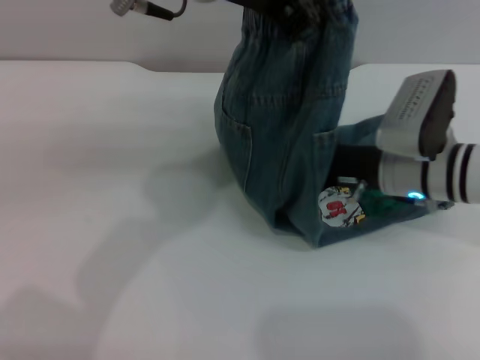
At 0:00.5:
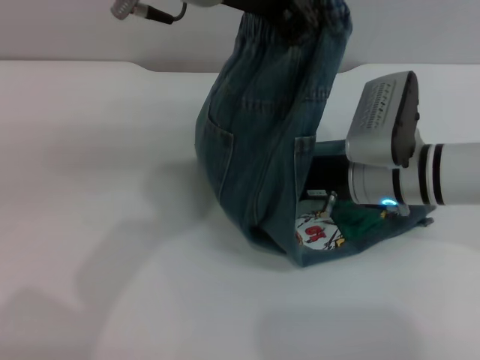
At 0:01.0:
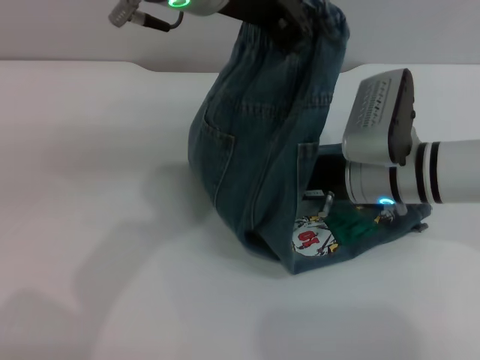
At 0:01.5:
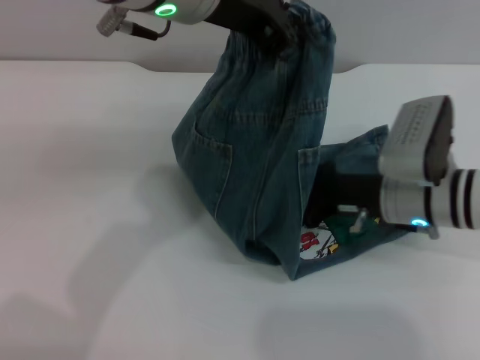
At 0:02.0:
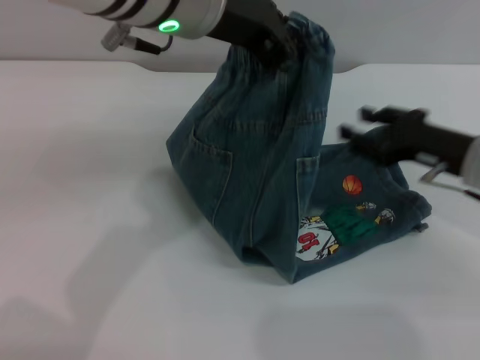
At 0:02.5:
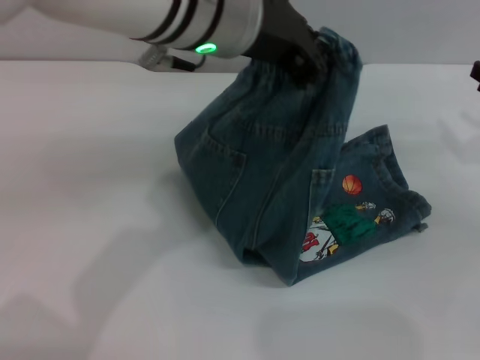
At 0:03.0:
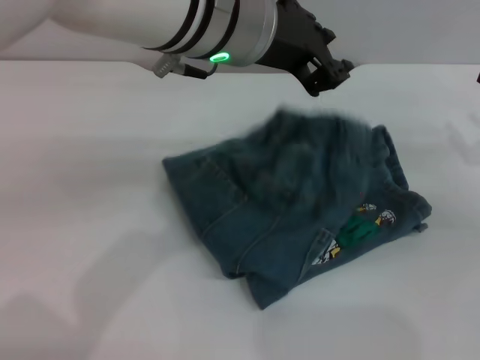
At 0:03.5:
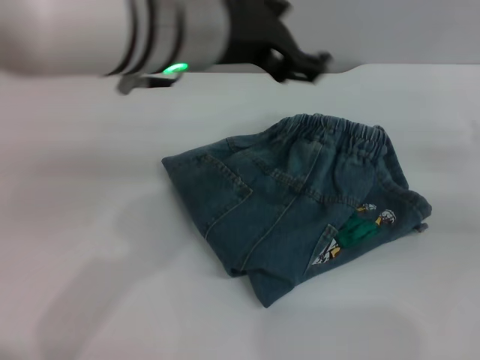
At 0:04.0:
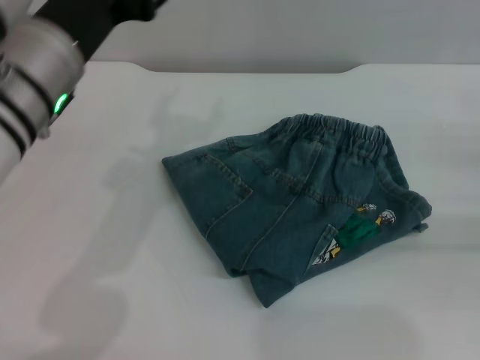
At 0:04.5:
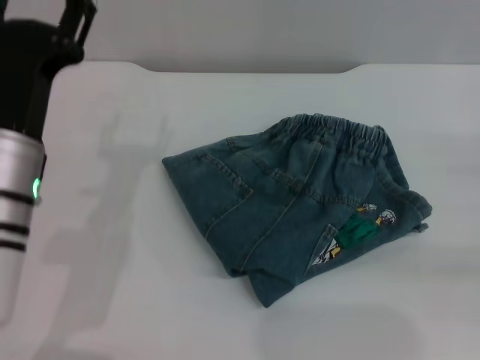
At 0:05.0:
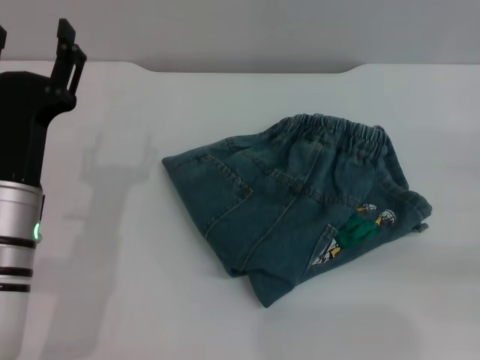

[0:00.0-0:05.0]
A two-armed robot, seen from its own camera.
Step, 0:00.0 to 0:03.5: Fold the pants from left to right with the left gripper.
0:00.0 to 0:02.5: The right gripper goes roughly 15 cm to the right.
0:02.5 to 0:05.0: The left gripper shifts about 25 cm downward, to the left and backward, and opens up, while the right gripper moves to the right and backward, some 10 cm.

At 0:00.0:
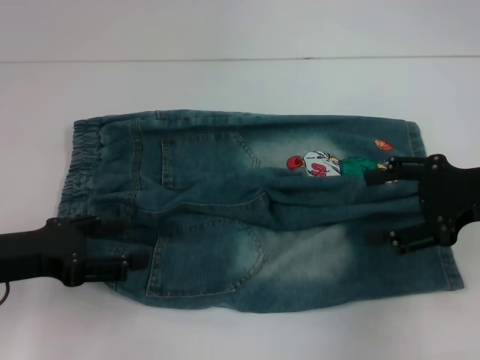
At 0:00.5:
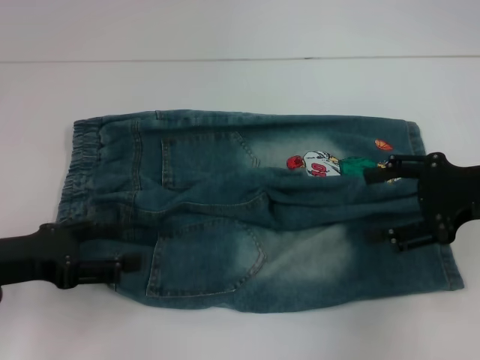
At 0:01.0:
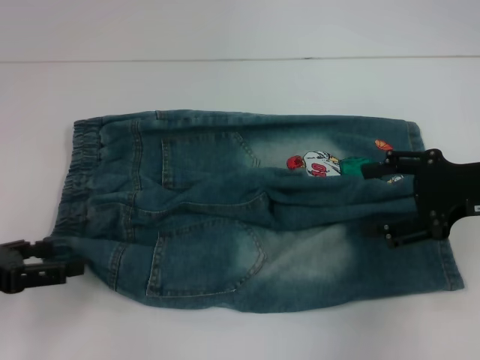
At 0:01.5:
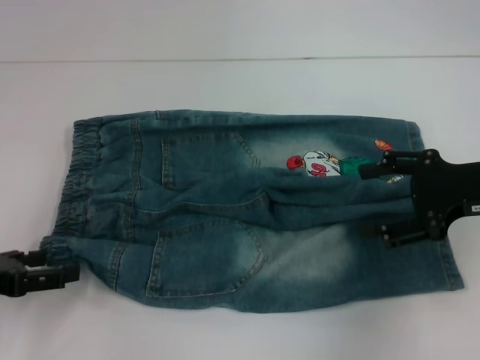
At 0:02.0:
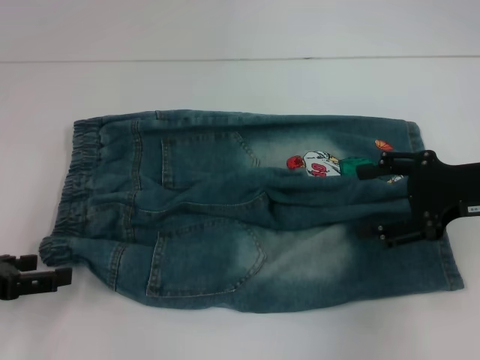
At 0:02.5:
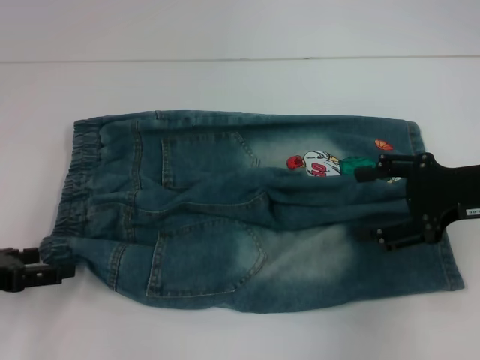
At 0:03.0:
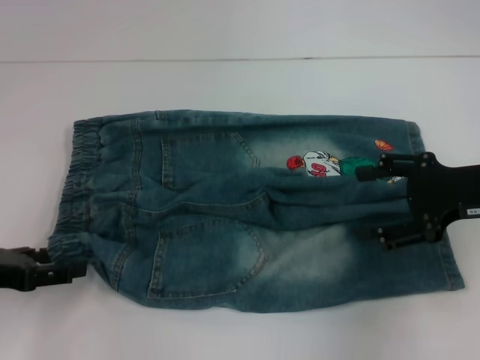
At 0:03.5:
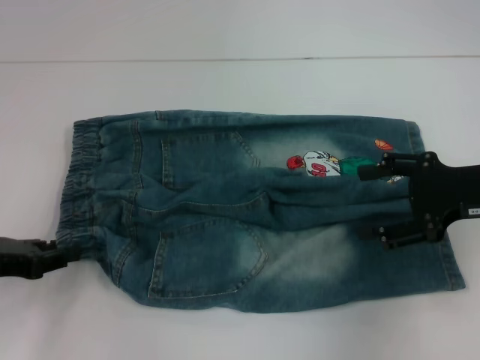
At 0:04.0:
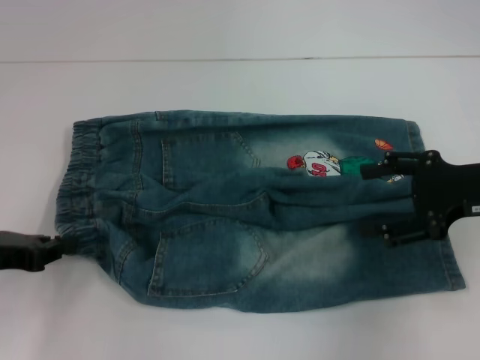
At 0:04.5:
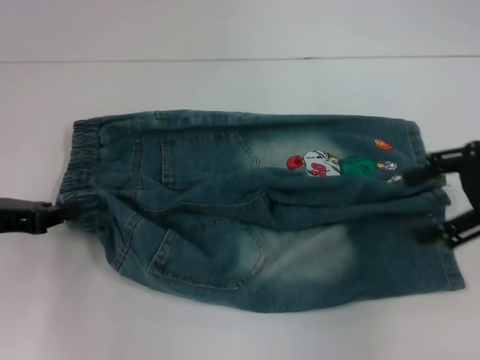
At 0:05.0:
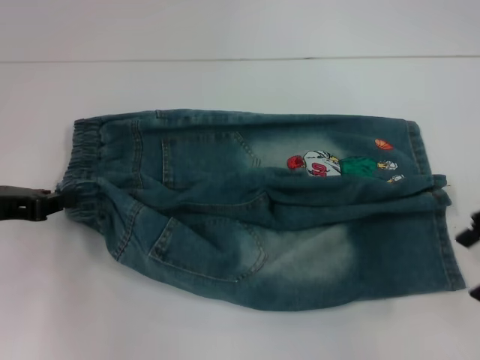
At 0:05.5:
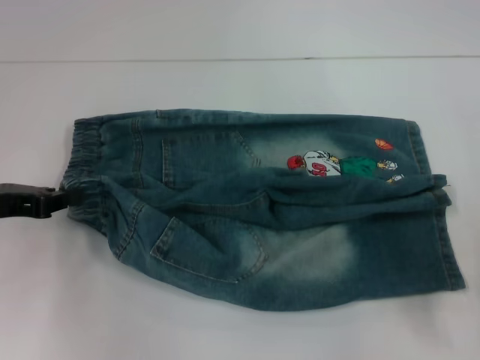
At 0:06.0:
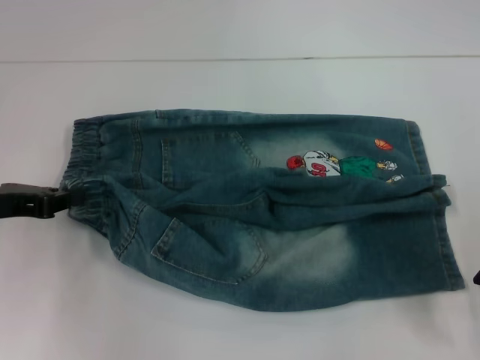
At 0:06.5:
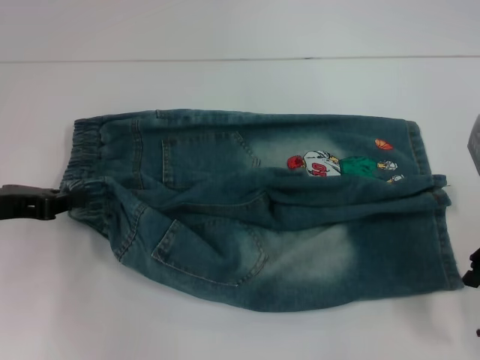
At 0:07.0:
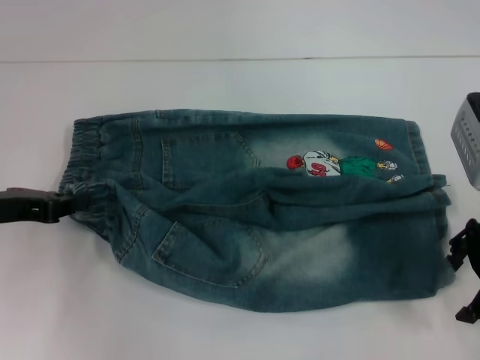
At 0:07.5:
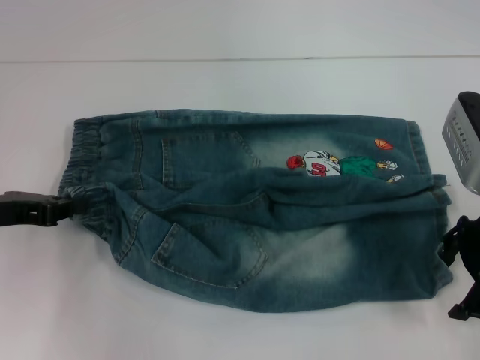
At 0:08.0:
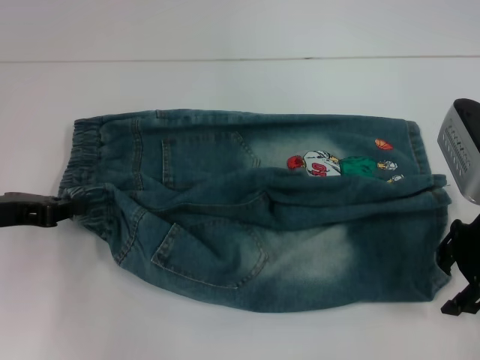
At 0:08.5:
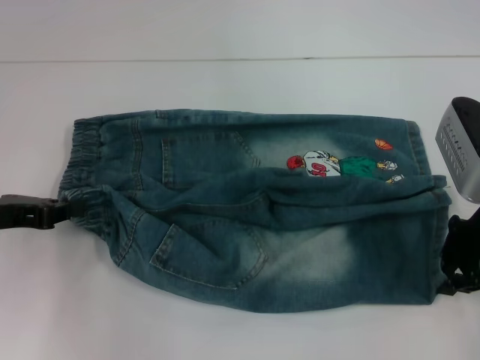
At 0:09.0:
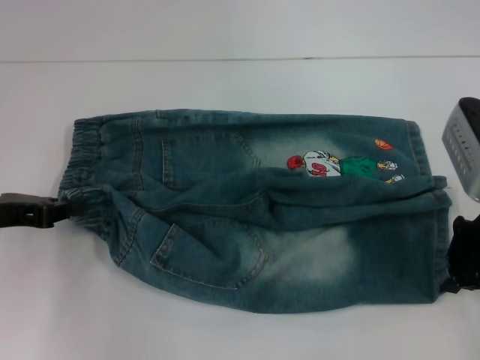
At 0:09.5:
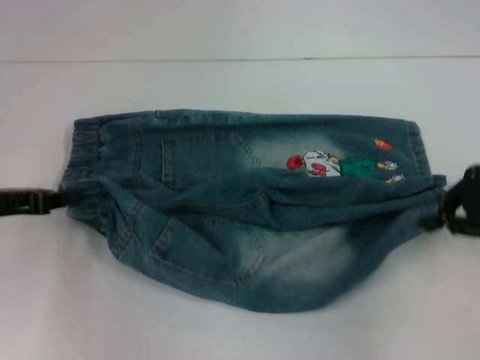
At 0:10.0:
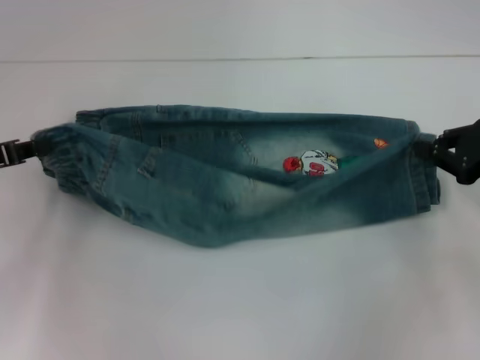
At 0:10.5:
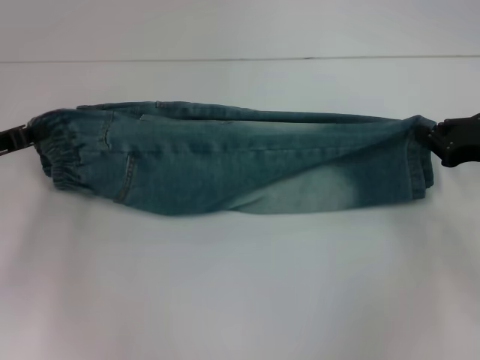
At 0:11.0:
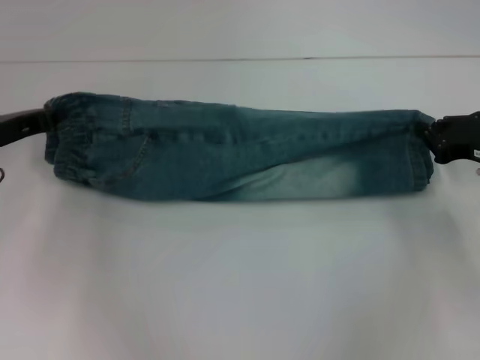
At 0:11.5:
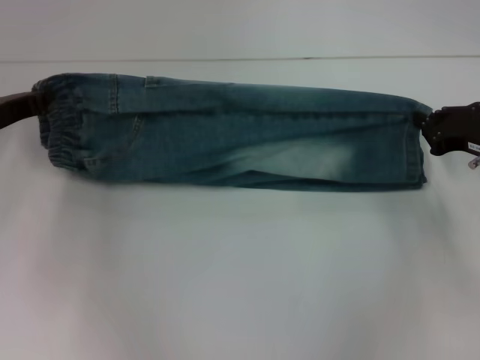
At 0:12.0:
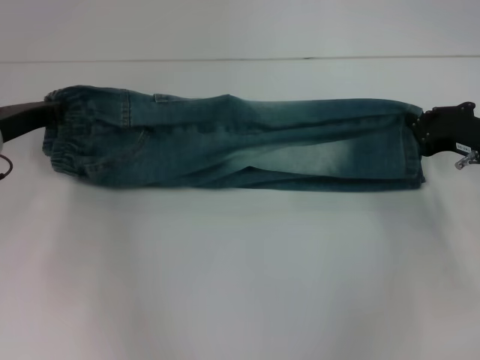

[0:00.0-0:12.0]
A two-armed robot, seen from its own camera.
Step, 0:00.0 to 0:03.0: Hold the lower left waistband with your left hand.
Step, 0:03.5 to 0:09.0: Grab the lower right pant leg with your right hand.
0:00.0 to 0:02.0: The left gripper goes some 5 cm to the left.
0:02.0 to 0:04.0: The left gripper closes up.
0:06.0 to 0:08.0: There are only small adjustments of the grippers.
0:08.0 to 0:10.0: The right gripper heads to the right, covering about 10 cm, and closes its fingers.
0:10.0 to 0:12.0: The right gripper shifts about 5 cm downward; the left gripper shifts some 5 cm forward.

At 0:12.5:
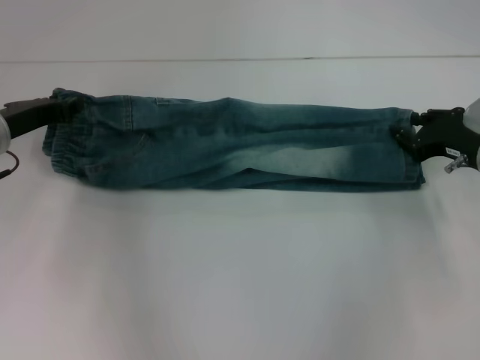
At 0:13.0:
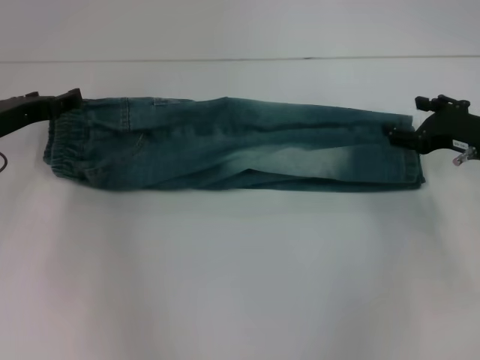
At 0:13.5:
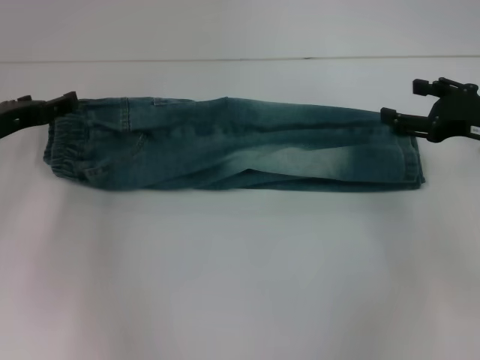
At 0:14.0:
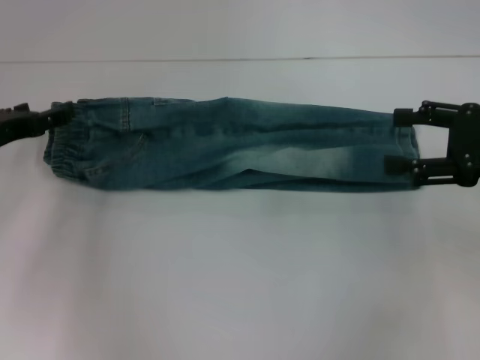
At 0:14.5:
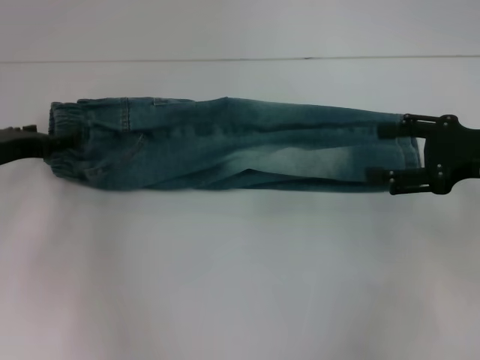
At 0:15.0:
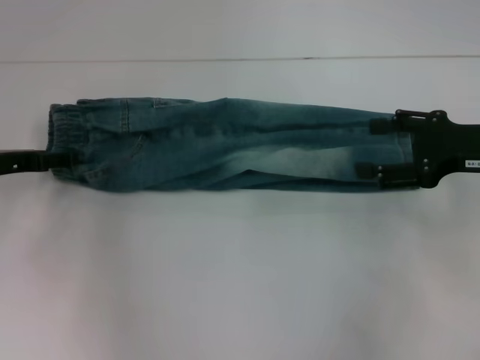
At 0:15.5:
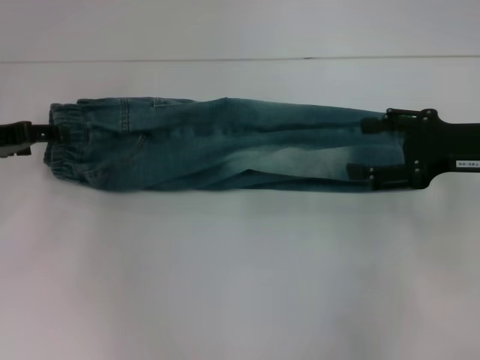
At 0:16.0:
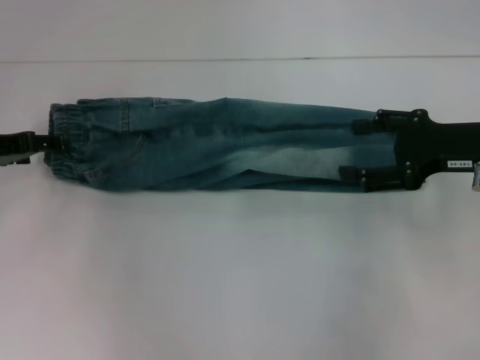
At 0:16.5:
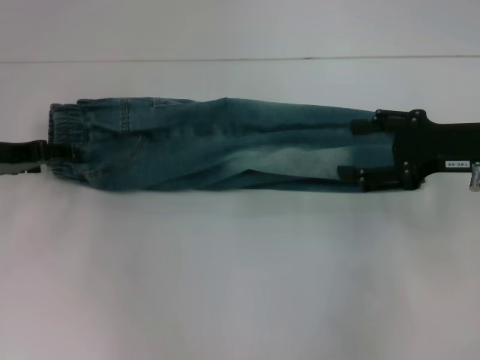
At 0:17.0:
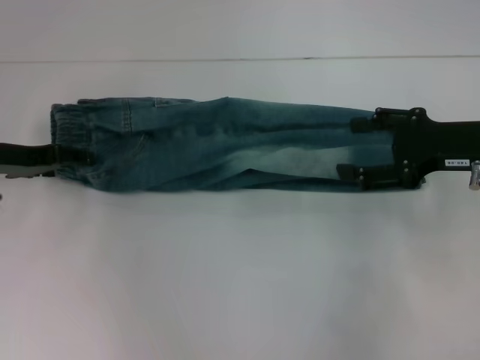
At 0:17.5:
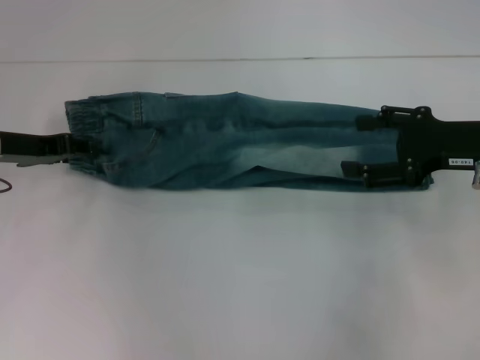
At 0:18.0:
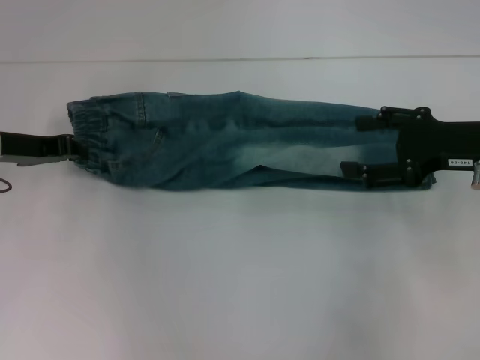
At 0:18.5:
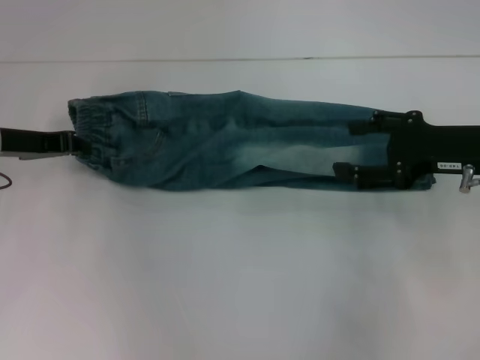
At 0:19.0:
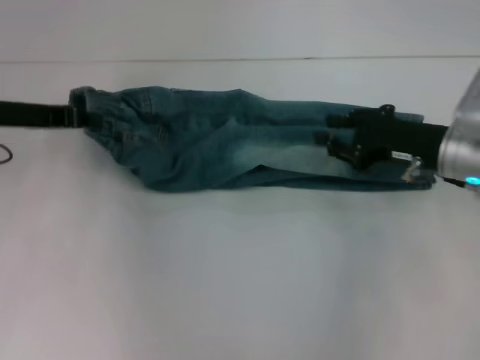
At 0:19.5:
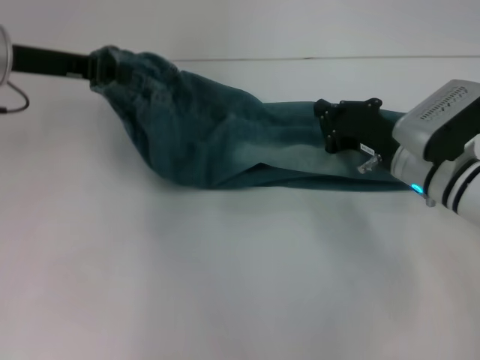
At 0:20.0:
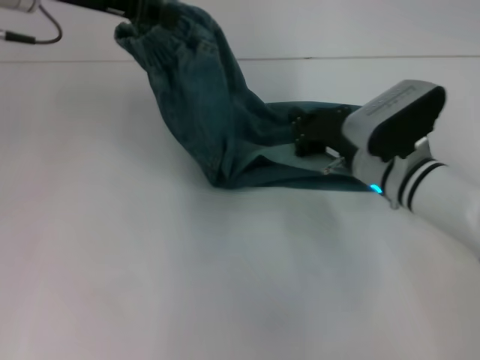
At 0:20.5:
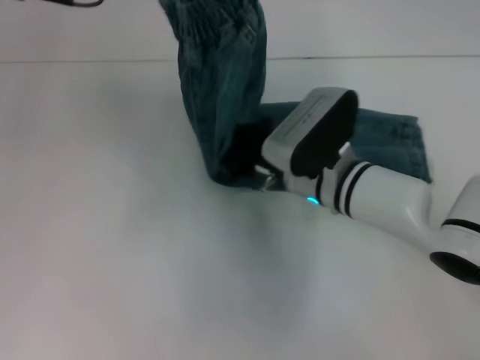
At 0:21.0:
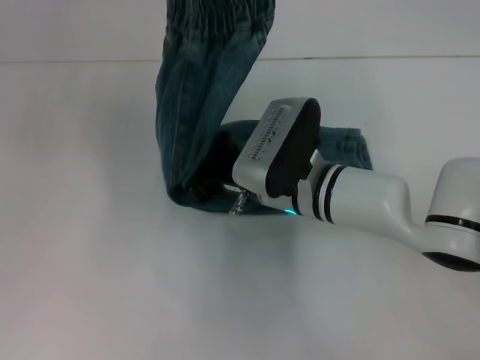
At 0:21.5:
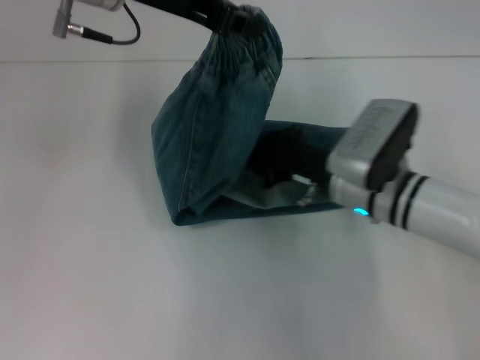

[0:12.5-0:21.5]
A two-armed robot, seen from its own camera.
Step, 0:13.5 to 0:18.5: Grab the waistband with your right hand.
Step, 0:19.0 to 0:21.0: Press the middle of the pants with your left hand.
0:12.5 to 0:14.5: The left gripper opens its fingers. Meanwhile the right gripper goes about 5 cm upward, and opens its fingers.
0:17.0 to 0:19.5: The right gripper shifts approximately 10 cm downward and to the left, and closes; the left gripper moves upward, some 10 cm, and closes its fingers.
0:19.5 to 0:21.5: The left gripper heads to the right and upward, covering about 15 cm; the right gripper is displaced to the left by approximately 5 cm.
